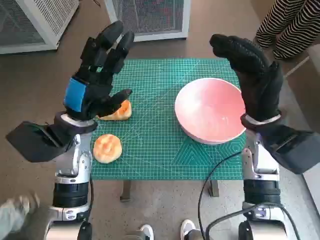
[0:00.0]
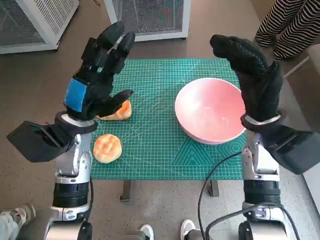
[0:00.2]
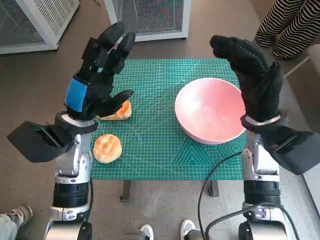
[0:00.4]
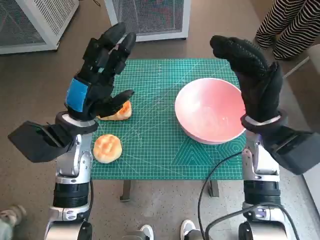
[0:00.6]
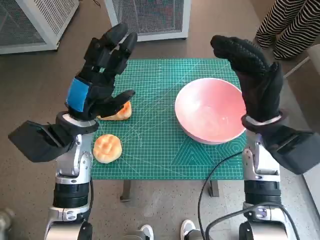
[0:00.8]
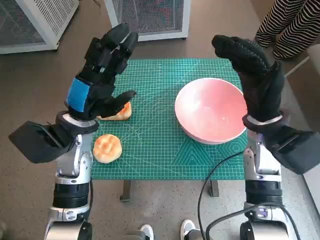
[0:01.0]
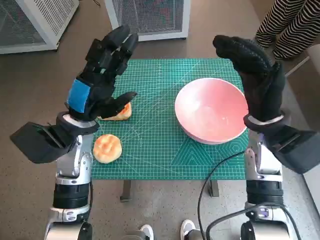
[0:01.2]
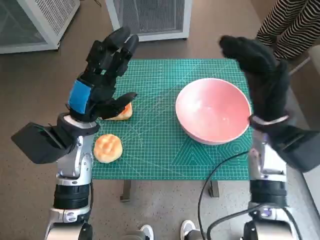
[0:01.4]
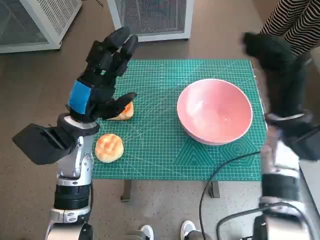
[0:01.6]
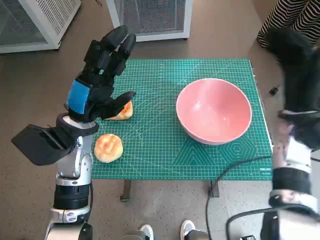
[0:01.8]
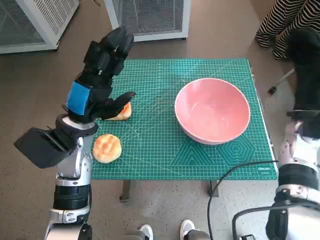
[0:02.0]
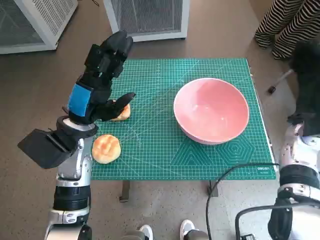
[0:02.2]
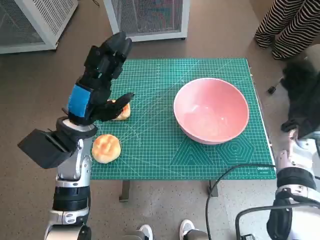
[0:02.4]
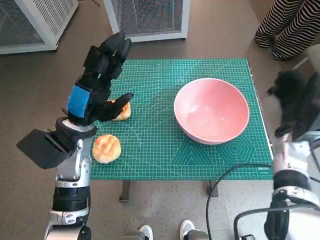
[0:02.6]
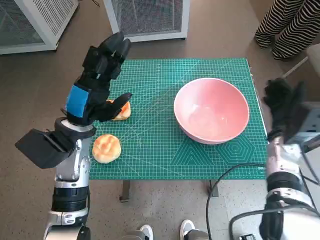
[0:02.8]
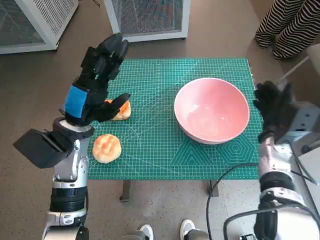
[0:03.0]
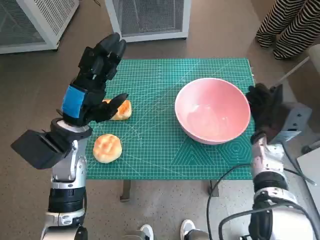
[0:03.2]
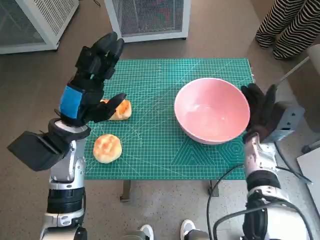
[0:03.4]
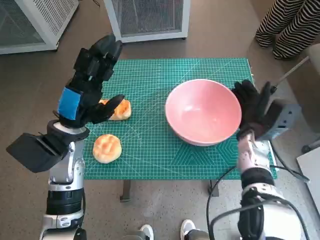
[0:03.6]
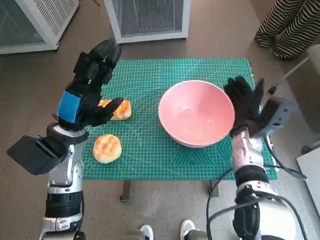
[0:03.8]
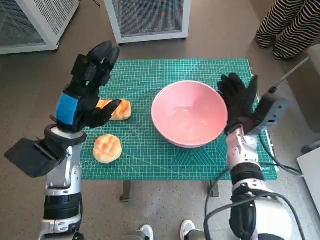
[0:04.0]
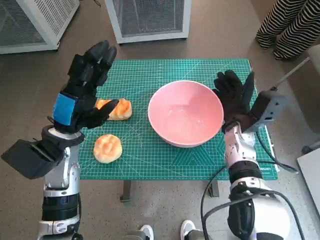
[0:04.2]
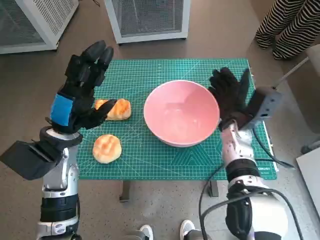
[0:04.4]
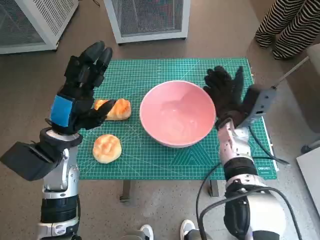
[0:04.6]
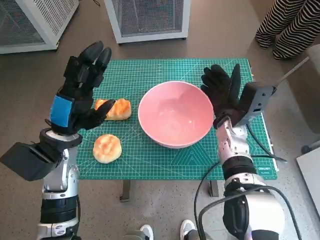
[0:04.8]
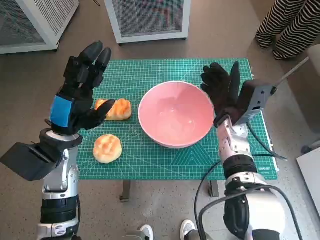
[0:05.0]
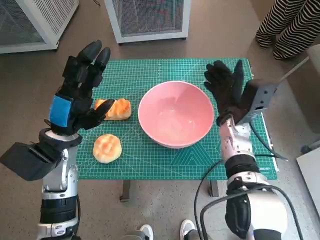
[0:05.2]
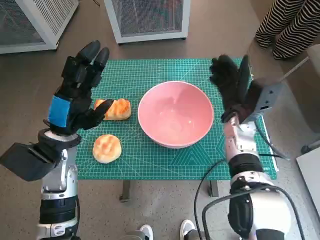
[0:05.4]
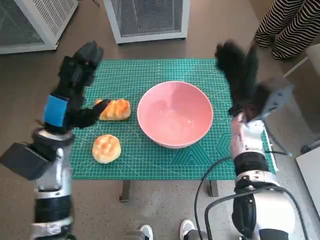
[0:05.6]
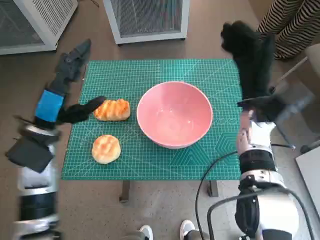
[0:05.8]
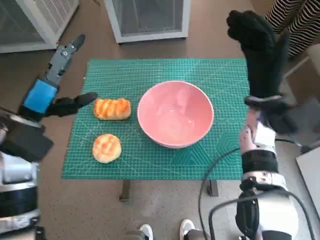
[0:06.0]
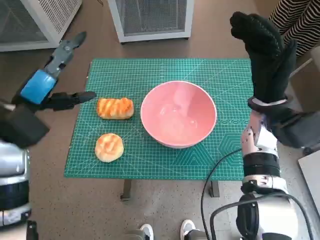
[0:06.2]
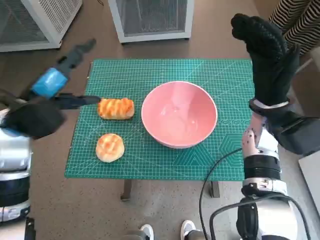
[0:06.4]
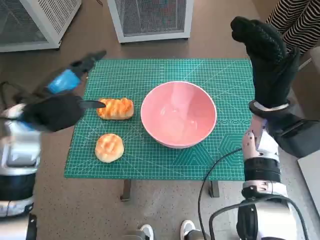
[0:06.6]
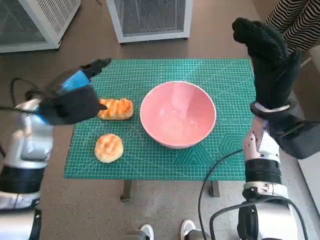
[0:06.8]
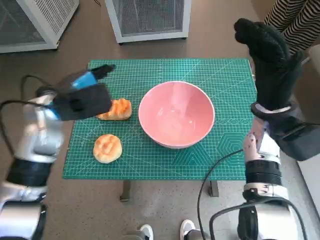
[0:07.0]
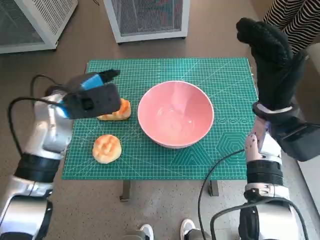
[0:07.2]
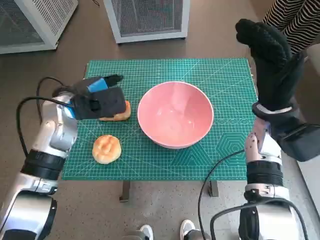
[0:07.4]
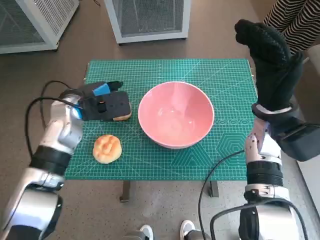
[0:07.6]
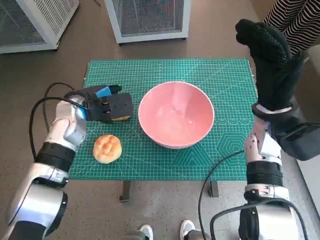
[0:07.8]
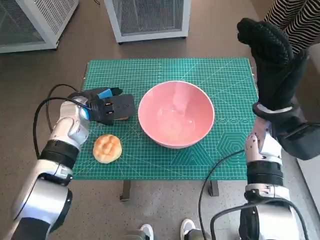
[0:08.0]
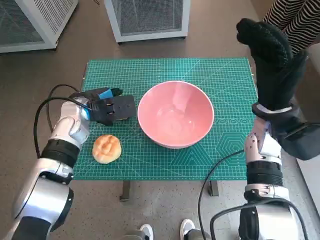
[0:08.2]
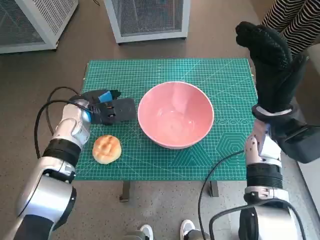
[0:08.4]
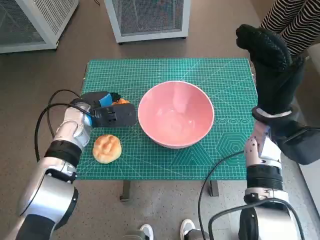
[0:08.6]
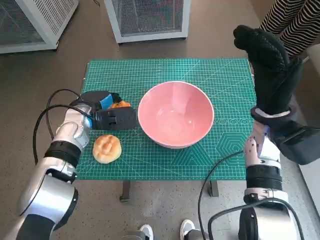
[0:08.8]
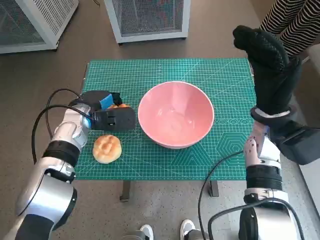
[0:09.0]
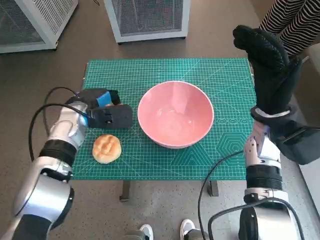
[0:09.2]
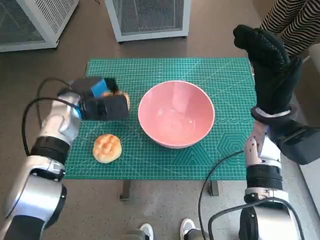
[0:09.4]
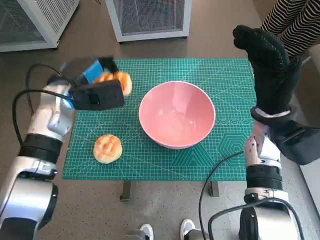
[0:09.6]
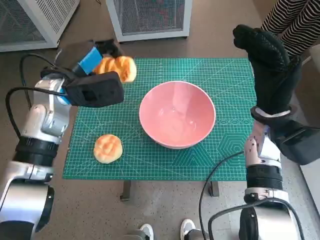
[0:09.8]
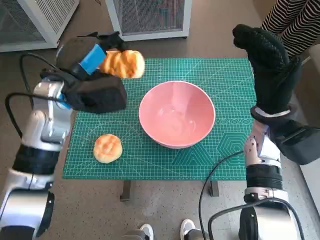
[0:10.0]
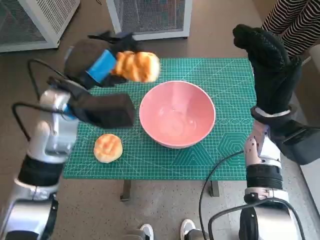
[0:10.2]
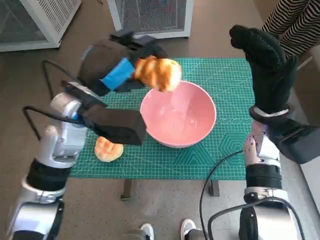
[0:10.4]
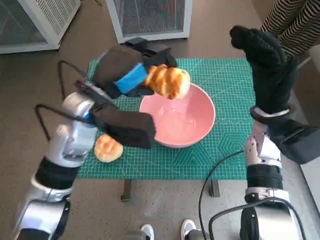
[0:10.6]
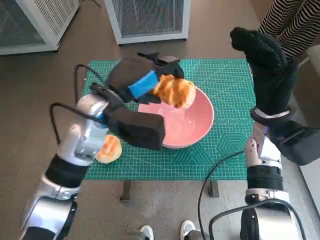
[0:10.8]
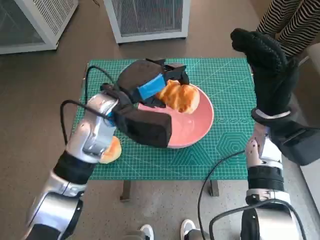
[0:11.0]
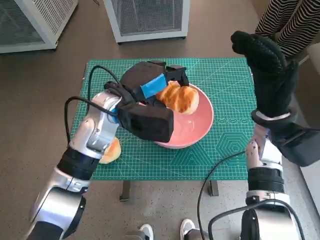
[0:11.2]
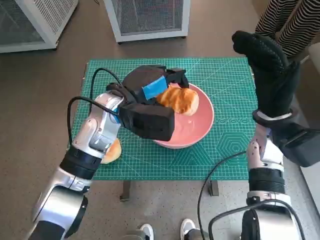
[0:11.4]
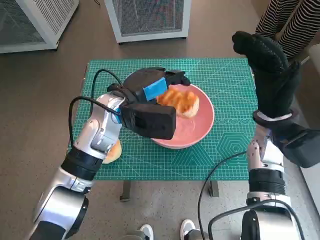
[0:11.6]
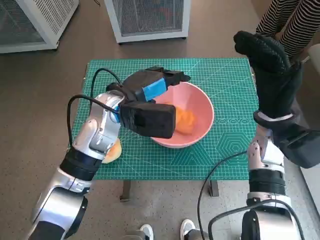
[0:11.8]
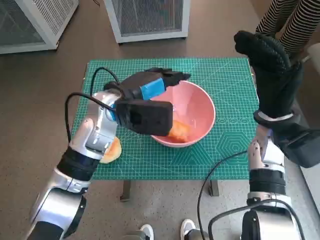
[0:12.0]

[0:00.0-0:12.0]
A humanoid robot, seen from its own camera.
Task of the whole recording: Push the bowl into the center of the table and put the bread into the bowl.
Step, 0:00.0 to 0:05.2: Move the pink bowl to the center of table with right hand.
Step, 0:05.4 to 0:09.0: Grasp the long bread with left hand.
Step, 0:09.2 to 0:11.6: Place the long bread in pink bowl with left hand.
0:01.6 to 0:03.0: The right hand travels downward by roughly 10 cm.
0:03.0 to 0:04.4: The right hand heads to the left, covering about 10 cm.
0:04.4 to 0:06.0: The right hand travels upward by some 10 cm. The left hand shifts approximately 5 cm to the left.
0:06.0 to 0:07.6: The left hand shifts some 10 cm forward and to the right.
0:07.6 to 0:09.0: The left hand travels downward by approximately 5 cm.
0:09.0 to 0:10.4: The left hand moves upward and backward, approximately 15 cm.
0:10.4 to 0:12.0: The left hand moves about 5 cm.

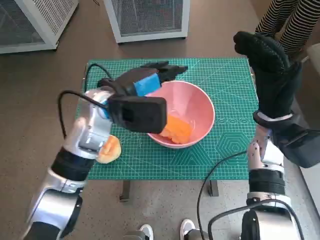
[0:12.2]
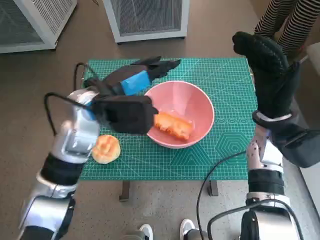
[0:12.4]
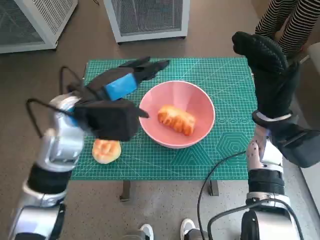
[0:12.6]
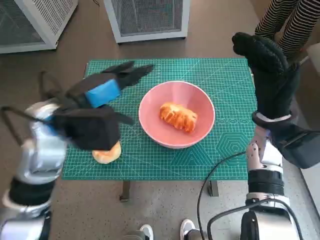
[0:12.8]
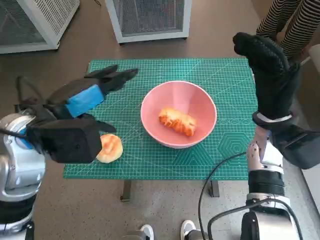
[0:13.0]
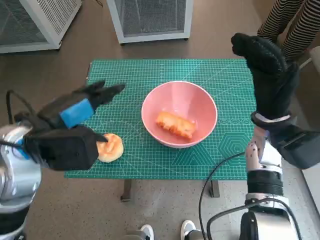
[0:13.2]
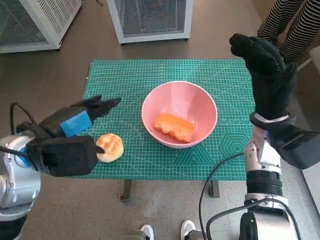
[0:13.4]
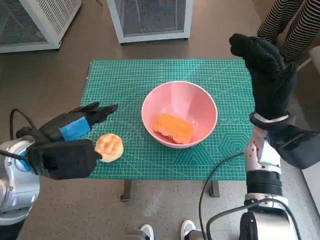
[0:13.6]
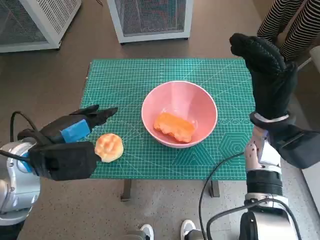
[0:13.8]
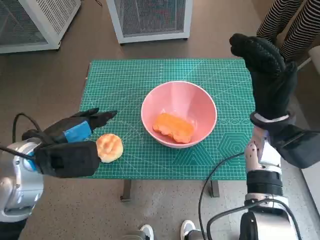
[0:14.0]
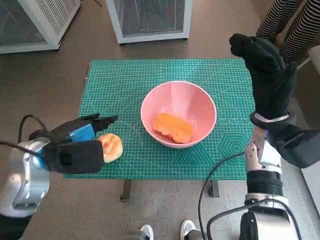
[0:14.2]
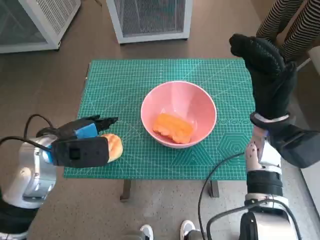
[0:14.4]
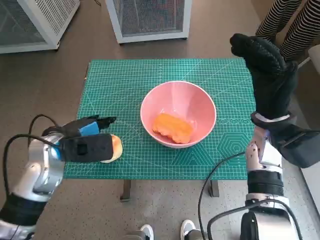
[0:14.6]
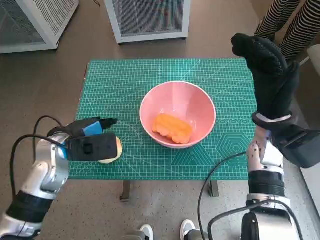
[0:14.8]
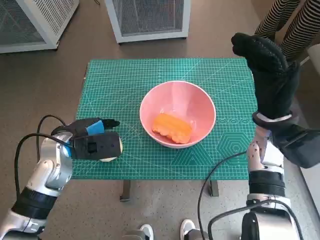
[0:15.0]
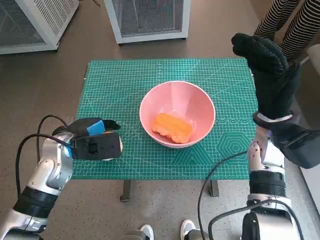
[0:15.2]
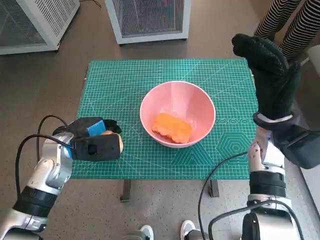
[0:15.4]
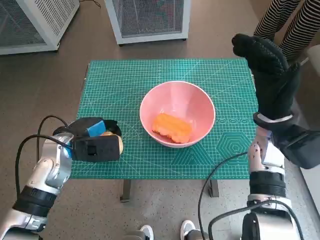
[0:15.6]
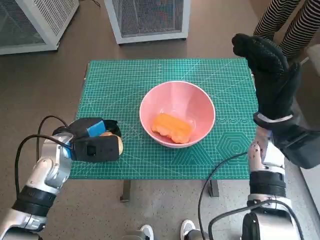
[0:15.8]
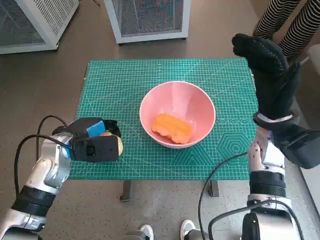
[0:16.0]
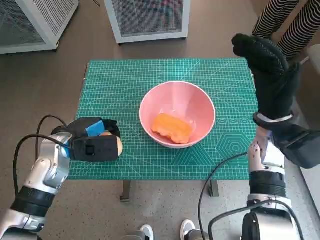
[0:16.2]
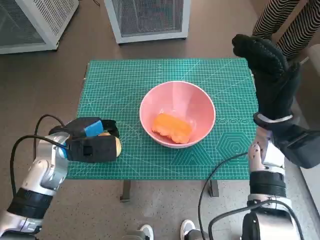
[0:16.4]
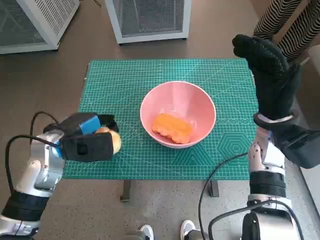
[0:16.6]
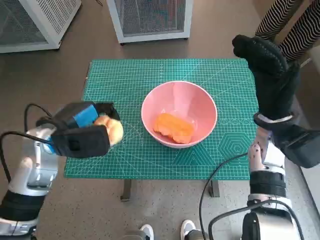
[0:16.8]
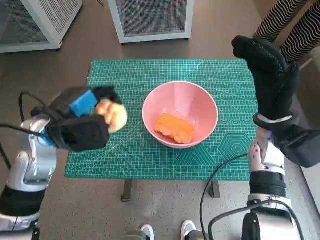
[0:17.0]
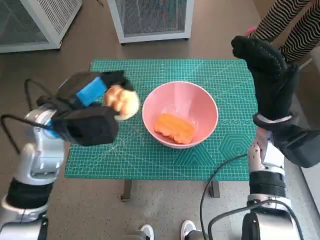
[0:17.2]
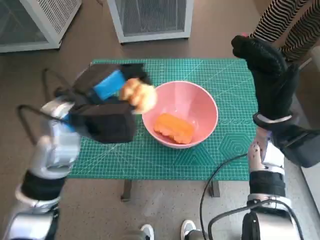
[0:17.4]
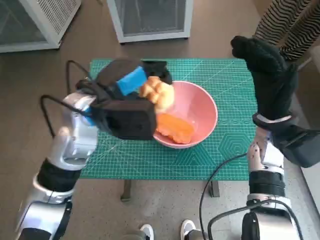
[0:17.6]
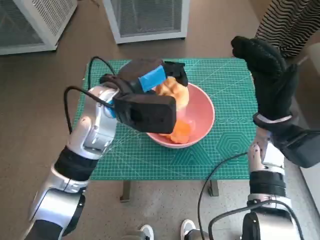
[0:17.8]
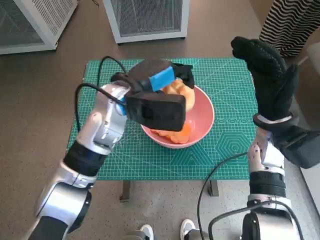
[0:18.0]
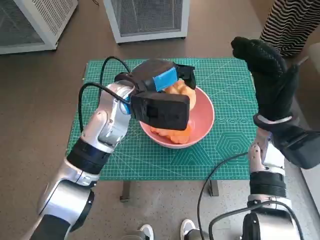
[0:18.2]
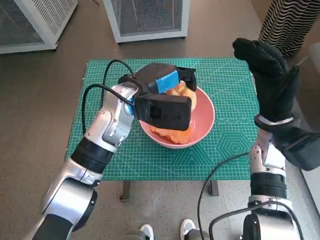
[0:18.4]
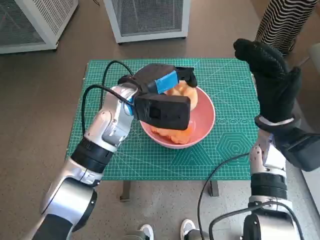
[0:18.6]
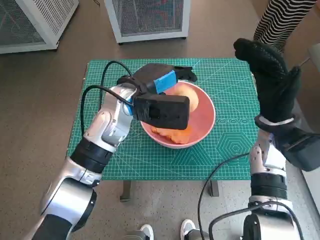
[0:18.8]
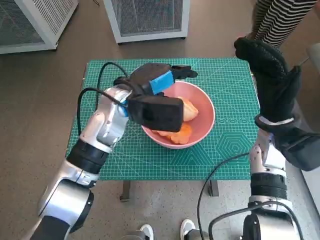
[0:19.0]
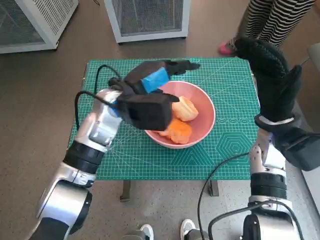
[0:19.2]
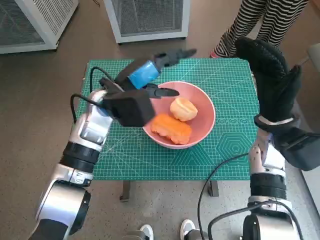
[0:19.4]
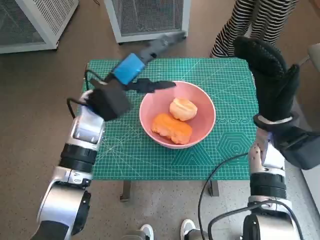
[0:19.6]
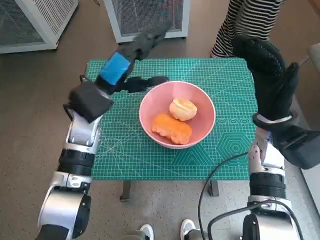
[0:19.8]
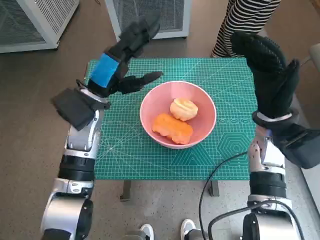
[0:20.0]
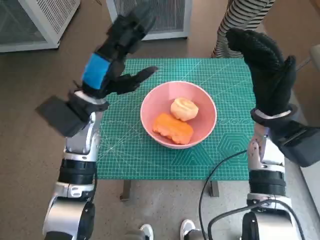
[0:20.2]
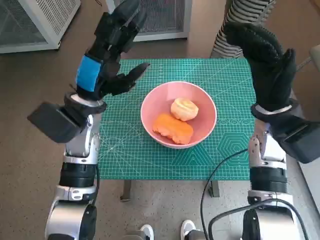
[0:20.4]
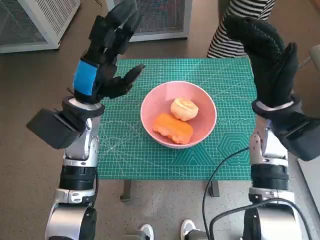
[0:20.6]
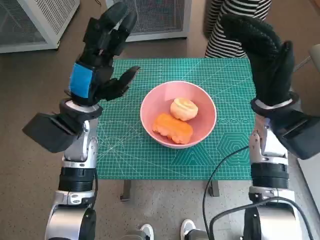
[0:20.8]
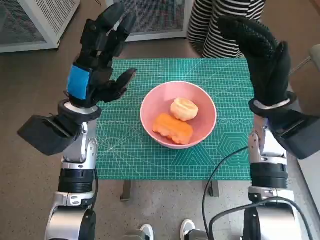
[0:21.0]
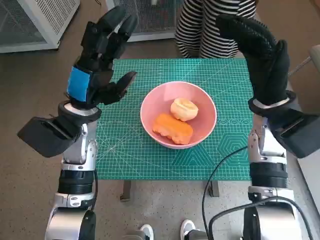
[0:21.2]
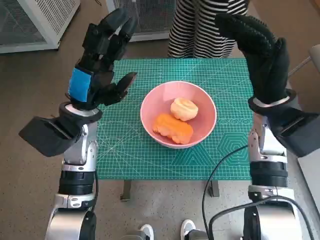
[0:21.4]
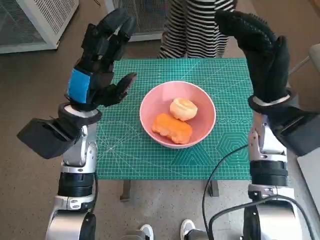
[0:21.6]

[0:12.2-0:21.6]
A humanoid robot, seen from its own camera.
Task of the whole recording: Push the bowl into the center of the table and put the bread into the bowl.
Step, 0:12.2 to 0:15.4: Grasp the round bread with left hand.
Step, 0:15.6 to 0:18.8: Place the round bread in pink bowl with left hand.
0:12.2 to 0:13.8: The left hand goes some 15 cm to the left and backward.
0:13.8 to 0:15.4: The left hand shifts some 10 cm downward and forward.
0:15.4 to 0:17.0: The left hand travels upward by roughly 5 cm.
0:17.0 to 0:18.4: The left hand heads to the right and forward, covering roughly 15 cm.
0:18.4 to 0:20.0: The left hand shifts about 5 cm to the left.

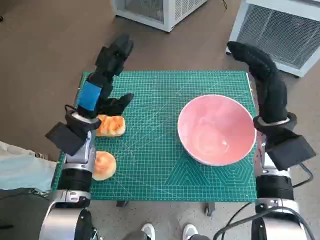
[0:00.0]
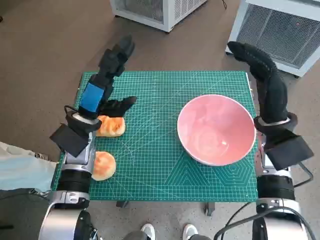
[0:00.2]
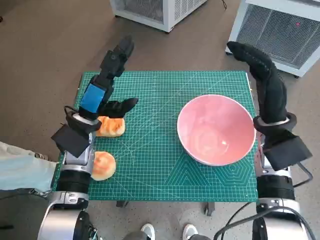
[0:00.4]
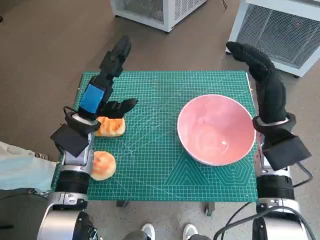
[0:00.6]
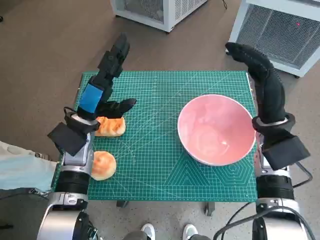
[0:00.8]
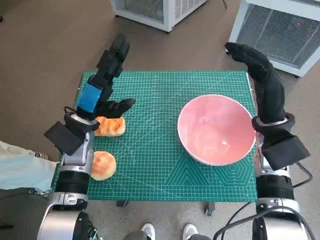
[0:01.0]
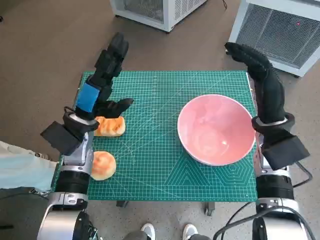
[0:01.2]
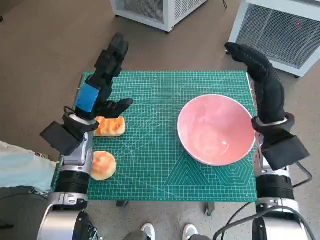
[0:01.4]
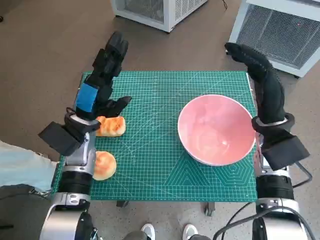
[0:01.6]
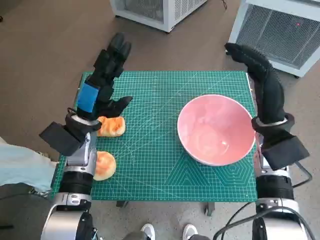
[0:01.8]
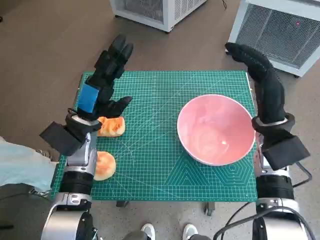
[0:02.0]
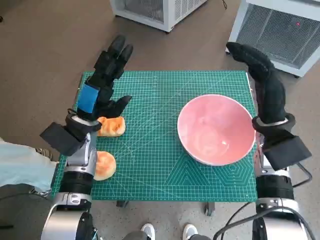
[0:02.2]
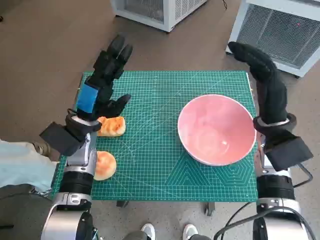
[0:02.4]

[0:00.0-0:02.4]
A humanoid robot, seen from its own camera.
Task of the whole recording: Push the bowl into the center of the table and put the bread into the bowl.
0:01.2 to 0:02.4: Both hands stay put.
